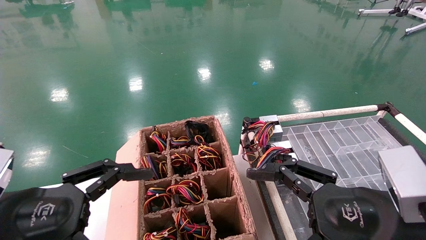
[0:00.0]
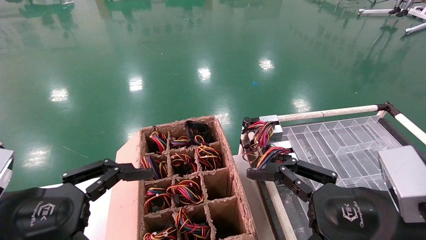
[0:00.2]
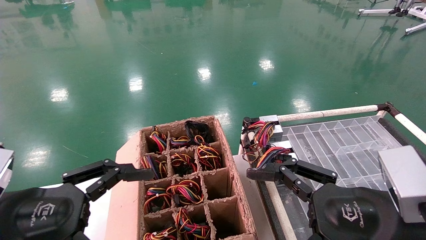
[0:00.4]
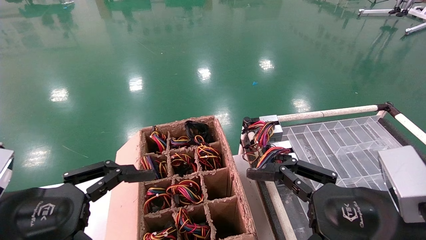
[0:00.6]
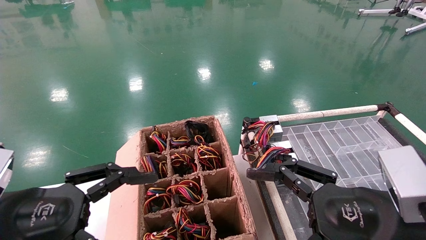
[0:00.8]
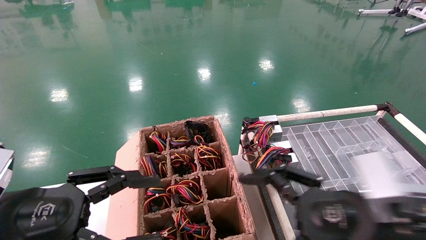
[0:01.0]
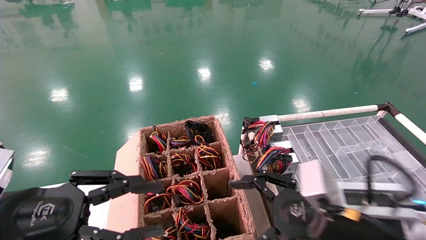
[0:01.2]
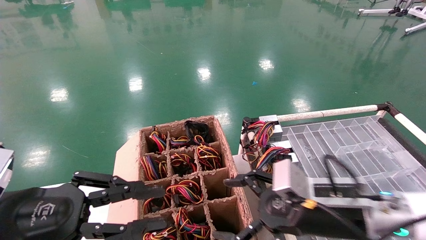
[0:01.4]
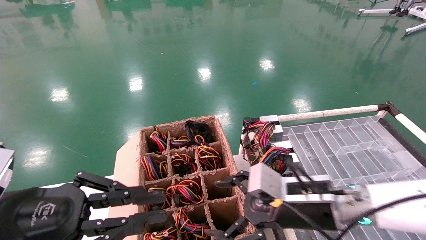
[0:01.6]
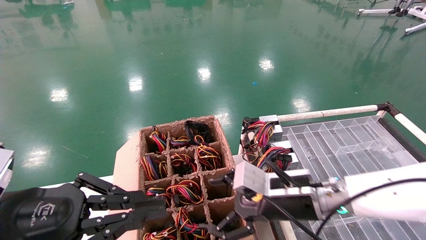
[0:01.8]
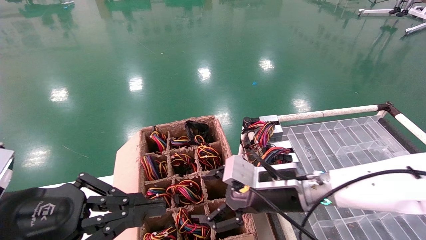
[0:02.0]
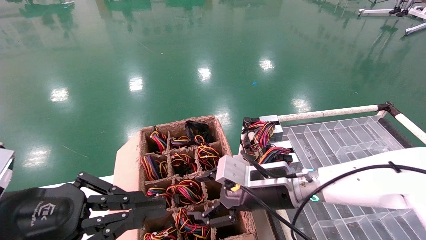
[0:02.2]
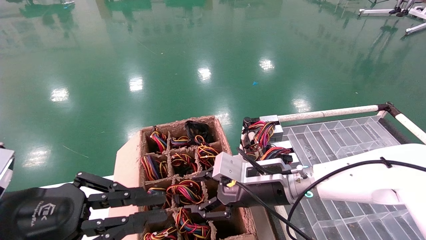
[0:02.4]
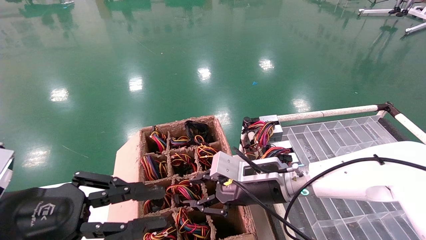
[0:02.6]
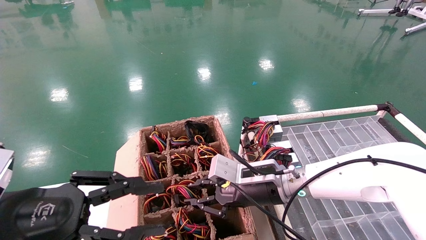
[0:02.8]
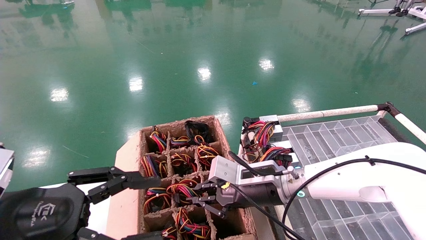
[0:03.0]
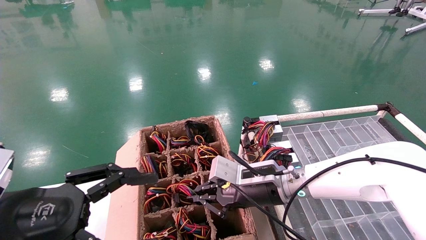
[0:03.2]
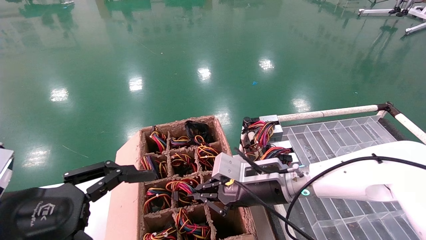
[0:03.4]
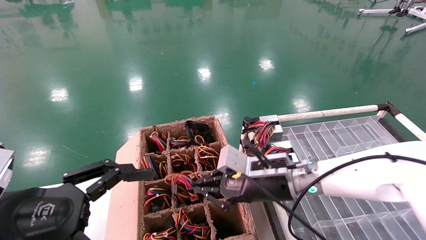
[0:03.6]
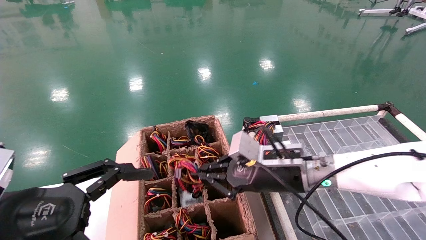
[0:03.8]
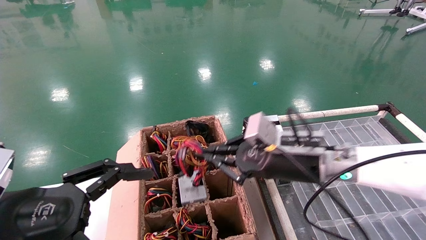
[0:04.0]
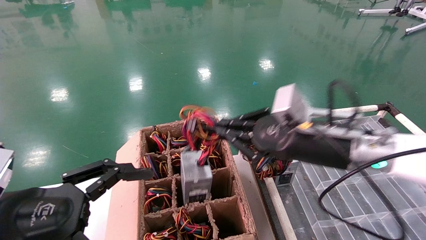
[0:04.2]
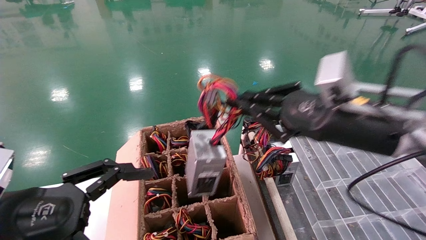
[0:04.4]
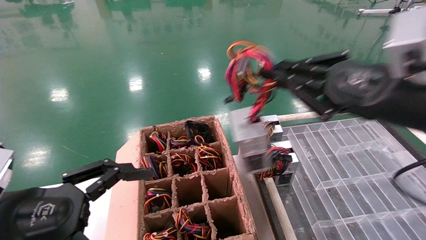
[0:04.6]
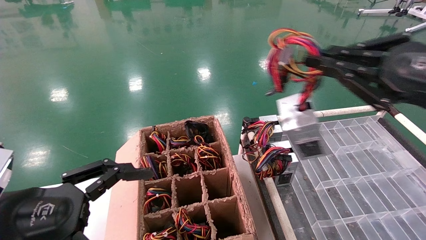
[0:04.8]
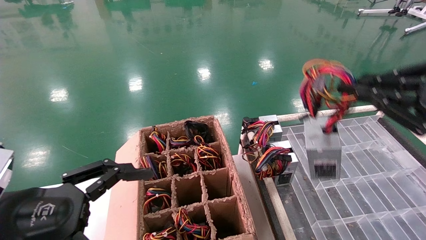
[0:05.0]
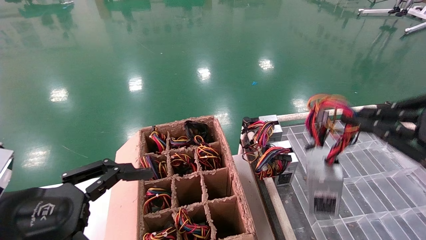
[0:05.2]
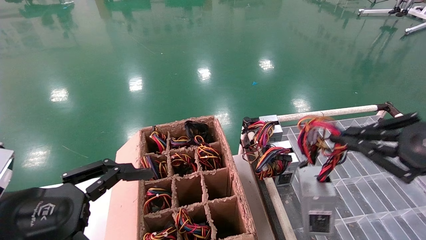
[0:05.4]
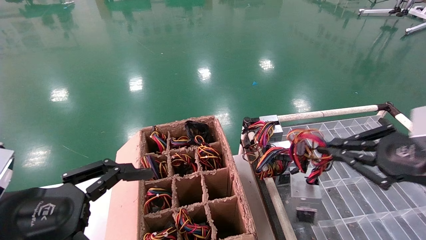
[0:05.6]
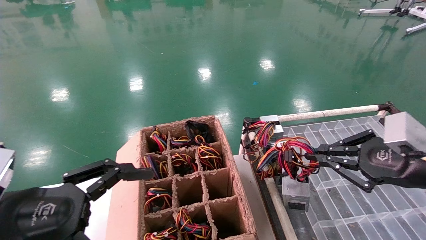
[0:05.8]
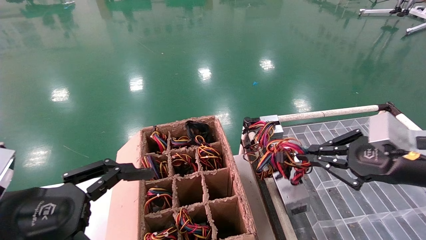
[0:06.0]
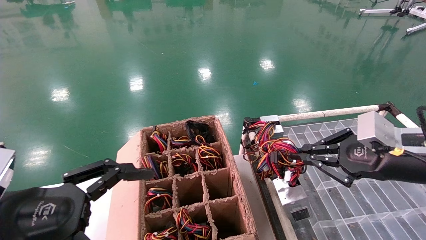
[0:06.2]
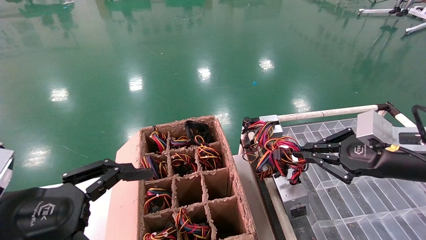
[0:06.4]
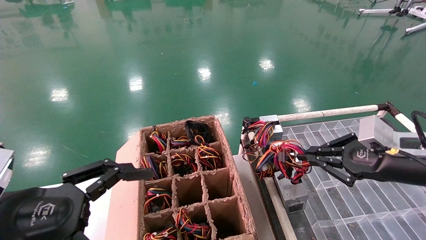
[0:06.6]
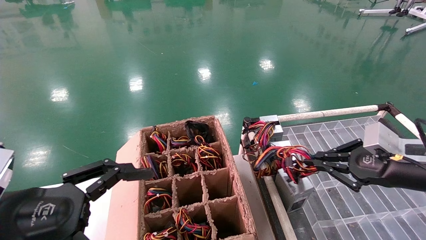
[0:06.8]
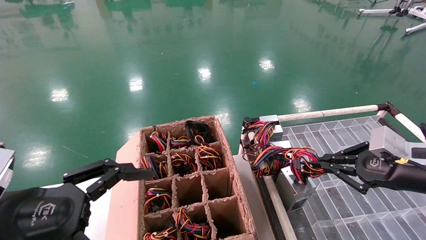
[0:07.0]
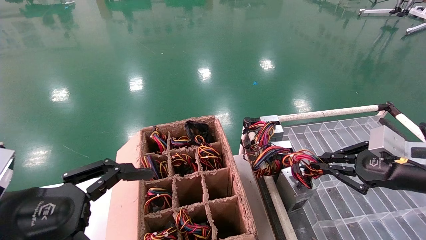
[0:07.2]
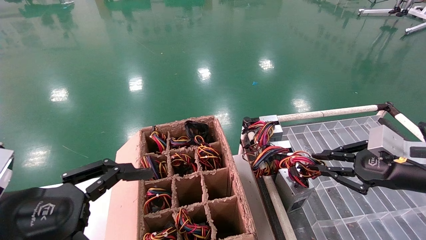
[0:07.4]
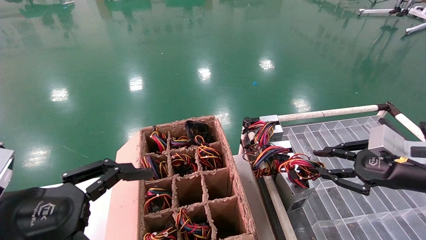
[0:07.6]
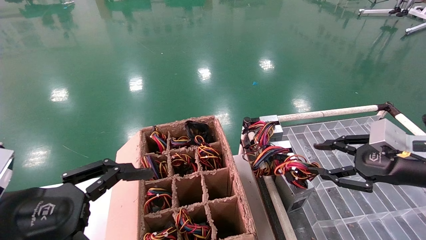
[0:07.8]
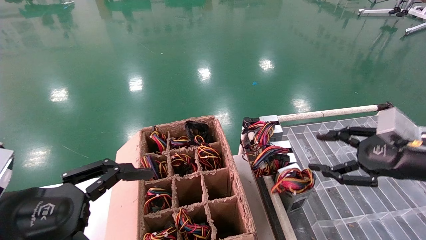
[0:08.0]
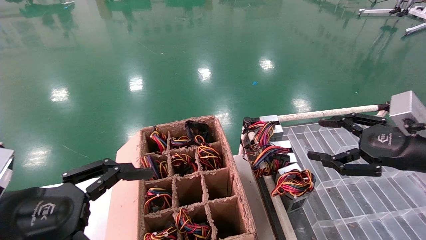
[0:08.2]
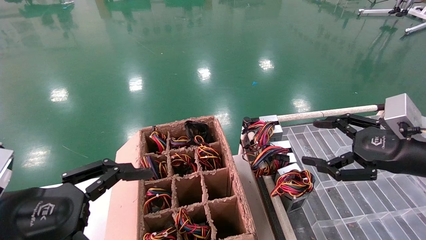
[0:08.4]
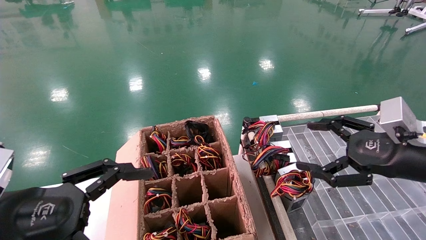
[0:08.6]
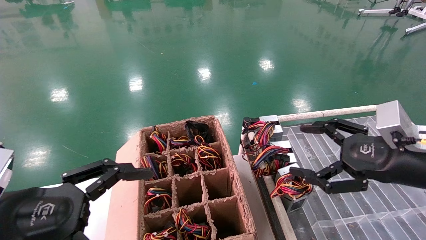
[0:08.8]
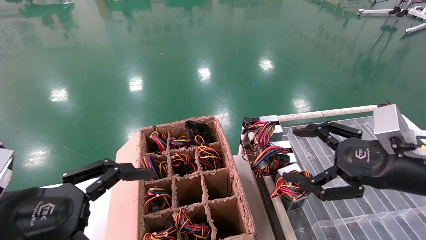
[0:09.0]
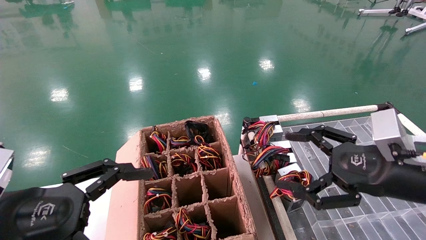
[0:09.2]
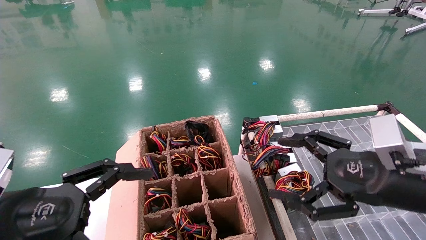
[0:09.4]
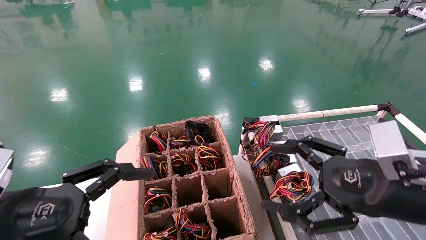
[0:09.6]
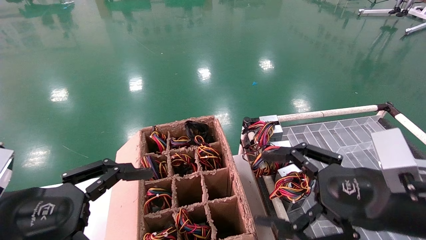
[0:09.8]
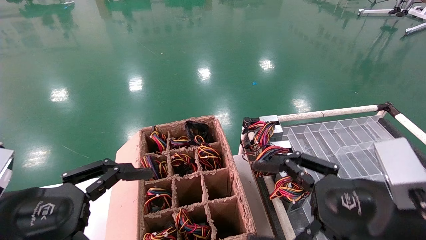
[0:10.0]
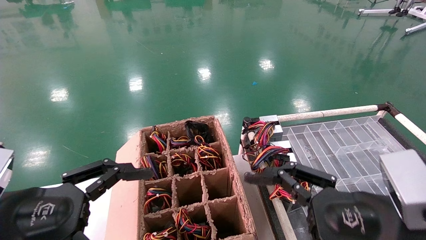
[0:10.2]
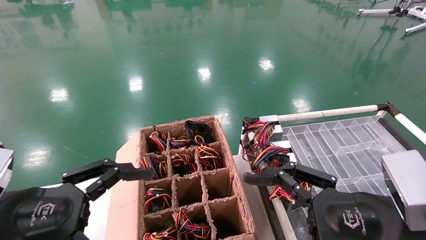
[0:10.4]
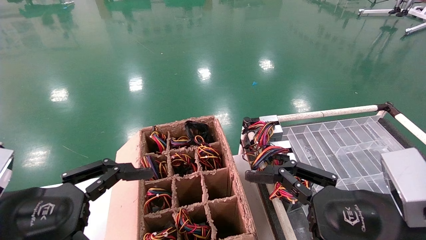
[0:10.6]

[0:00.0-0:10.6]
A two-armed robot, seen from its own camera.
Step, 0:02.0 to 0:03.2: Grab and lift the power supply from the large box.
Step, 0:03.4 to 0:07.2: Place the power supply on the operating table.
0:00.0 to 0:01.6: The left gripper closes up, while the right gripper shifts roughly 15 cm forward and to the left.
0:01.6 to 0:03.0: The right gripper heads forward and to the left, covering some 10 cm, and closes.
0:03.0 to 0:04.6: The right gripper goes roughly 30 cm upward, to the right and backward, while the left gripper opens.
0:04.6 to 0:06.0: The right gripper is displaced downward and to the right by some 10 cm.
0:06.0 to 0:07.6: The right gripper shifts by approximately 5 cm.
0:07.6 to 0:09.0: The right gripper is displaced to the left by about 5 cm, and opens up.
0:09.0 to 0:10.6: The right gripper heads to the left and backward, covering approximately 10 cm.

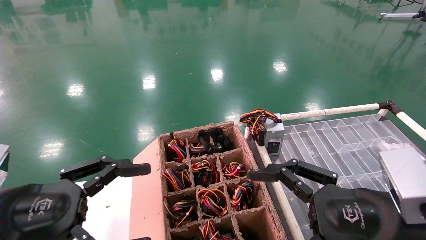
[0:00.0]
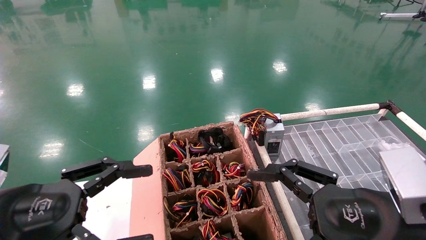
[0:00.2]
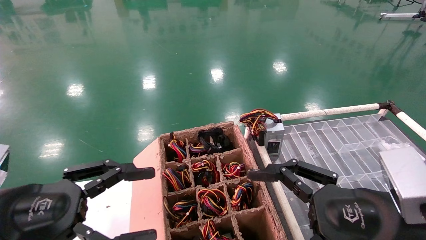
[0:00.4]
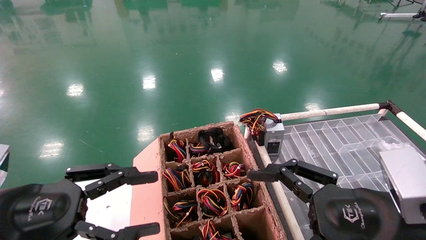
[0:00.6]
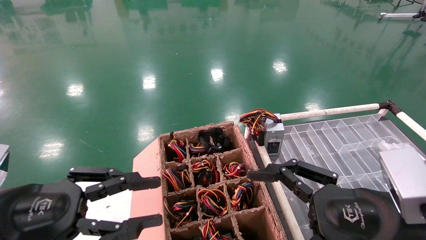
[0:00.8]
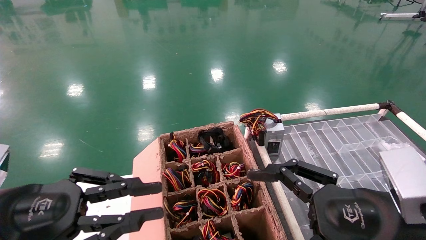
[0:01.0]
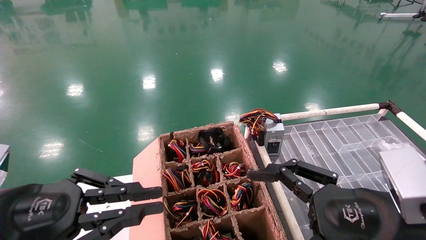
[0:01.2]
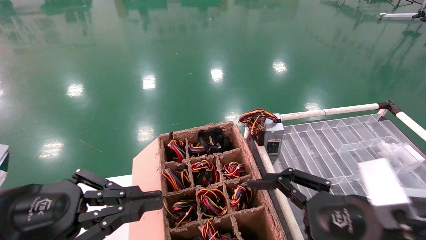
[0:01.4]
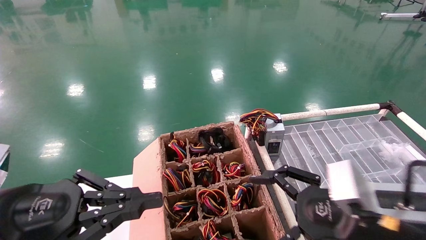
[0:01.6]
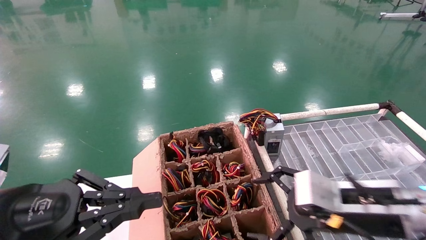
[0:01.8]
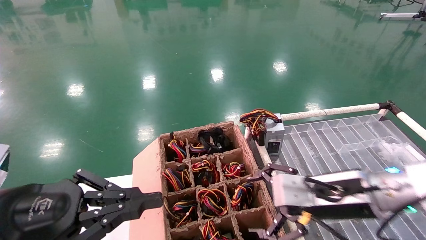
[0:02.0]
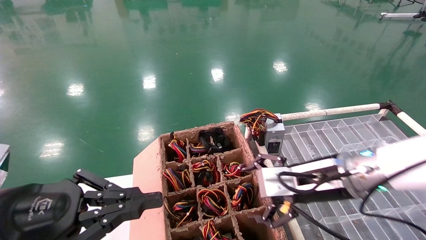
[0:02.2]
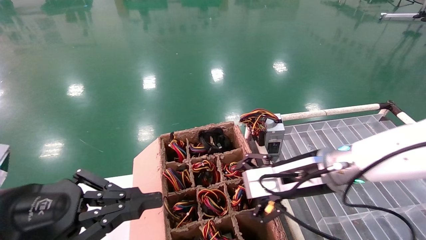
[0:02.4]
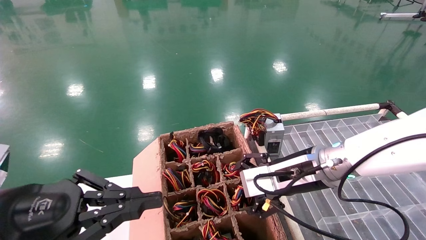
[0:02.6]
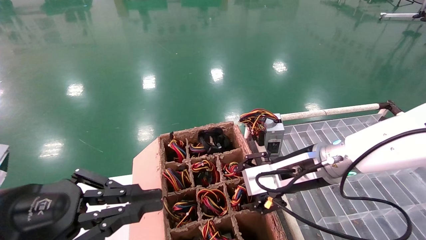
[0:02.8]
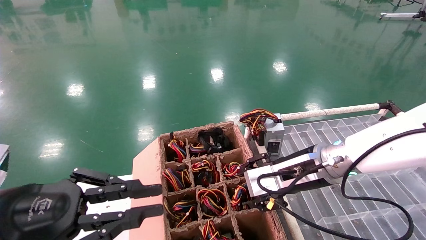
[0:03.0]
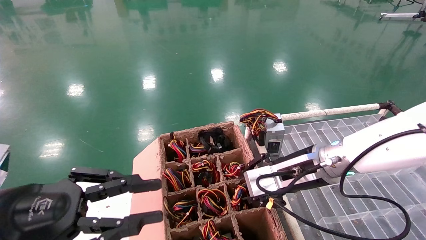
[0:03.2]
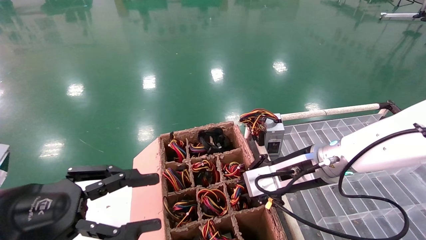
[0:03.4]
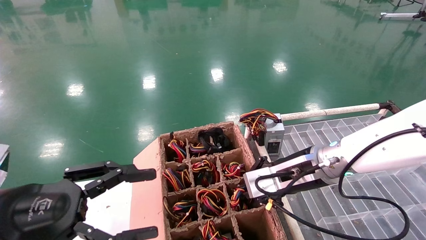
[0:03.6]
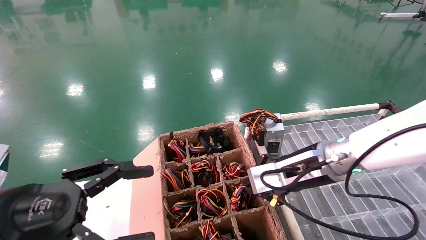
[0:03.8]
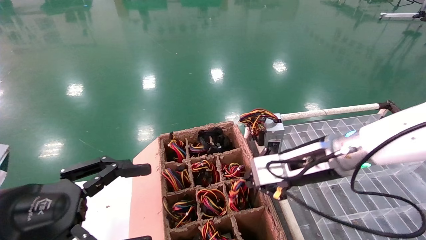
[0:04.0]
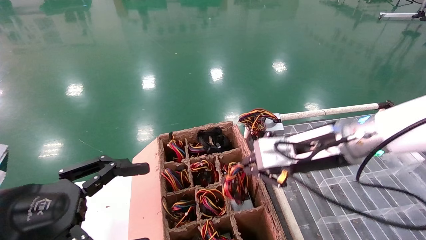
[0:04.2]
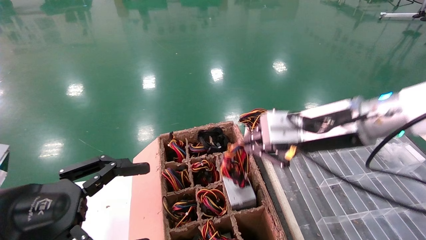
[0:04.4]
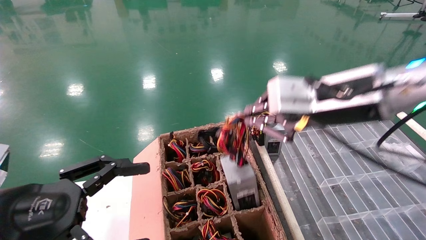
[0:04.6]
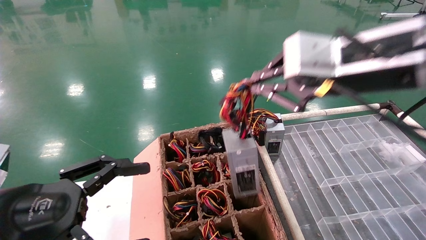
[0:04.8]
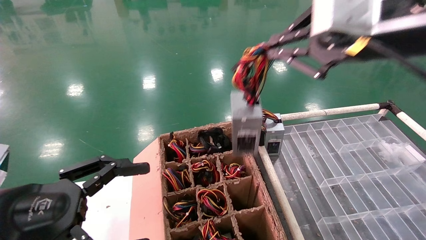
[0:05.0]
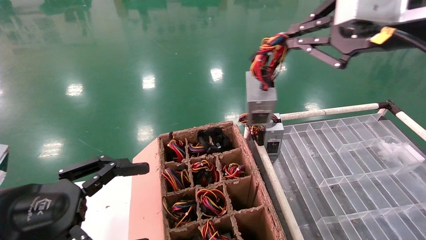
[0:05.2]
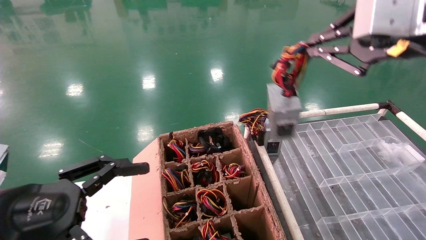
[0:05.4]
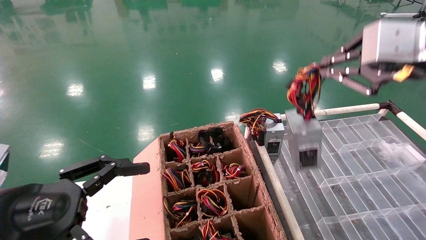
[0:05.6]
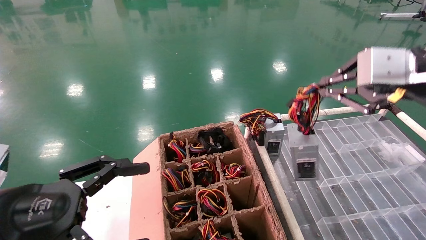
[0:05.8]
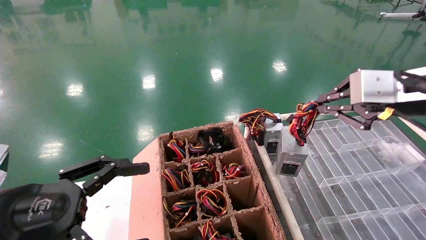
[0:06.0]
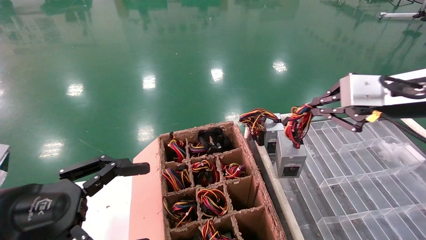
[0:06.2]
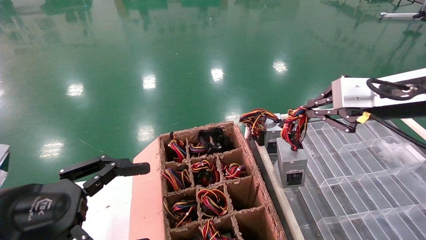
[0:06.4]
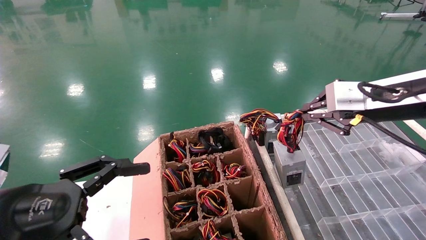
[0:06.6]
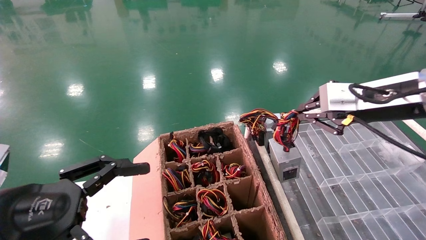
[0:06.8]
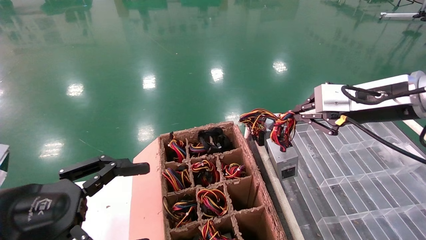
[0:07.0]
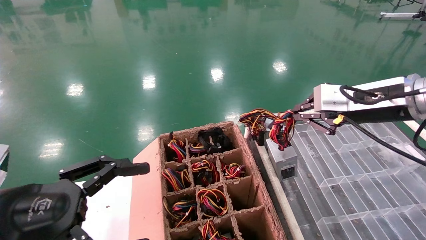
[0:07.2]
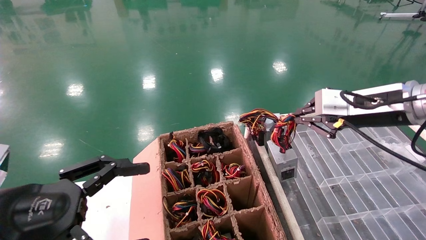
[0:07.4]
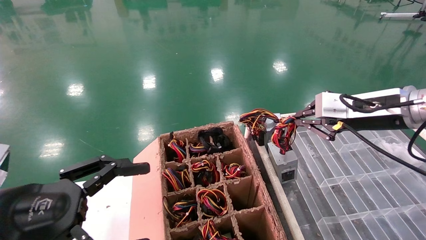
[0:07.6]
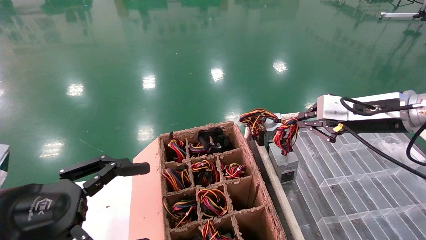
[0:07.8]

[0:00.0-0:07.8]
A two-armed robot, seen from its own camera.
Step, 0:01.6 to 0:03.8: Grab and lift the power supply from the large box.
0:00.0 to 0:01.6: The right gripper travels forward by approximately 5 cm. The left gripper closes.
0:01.6 to 0:03.2: The right gripper moves forward and to the left, some 15 cm, and closes up.
0:03.2 to 0:04.6: The left gripper opens up. The right gripper heads upward and backward, covering some 15 cm, and closes its fingers.
0:04.6 to 0:06.2: The right gripper moves to the right, approximately 10 cm.
0:06.2 to 0:07.8: The right gripper goes roughly 10 cm forward and downward.
